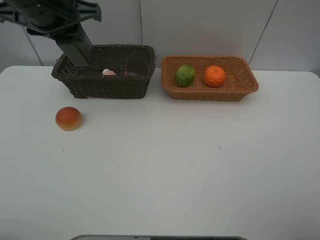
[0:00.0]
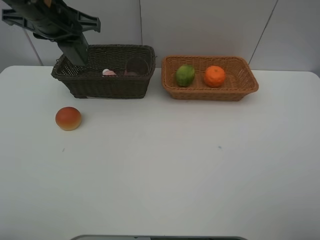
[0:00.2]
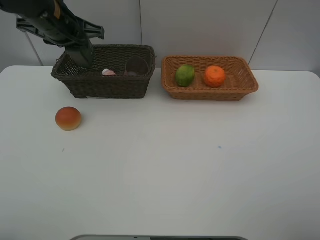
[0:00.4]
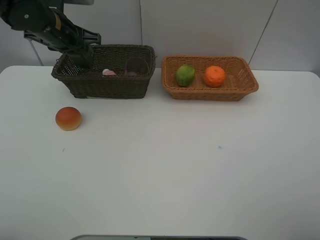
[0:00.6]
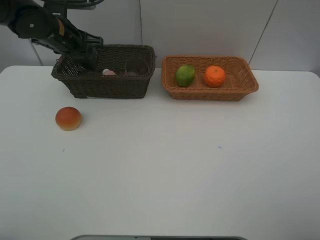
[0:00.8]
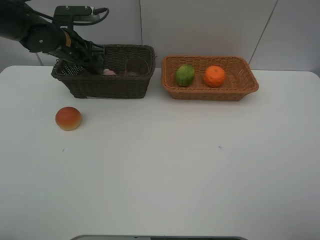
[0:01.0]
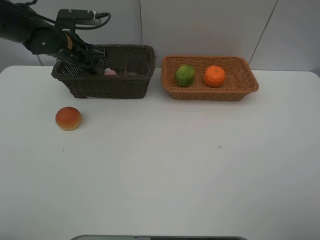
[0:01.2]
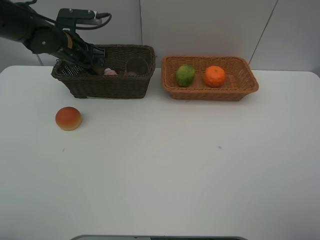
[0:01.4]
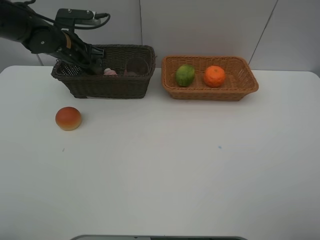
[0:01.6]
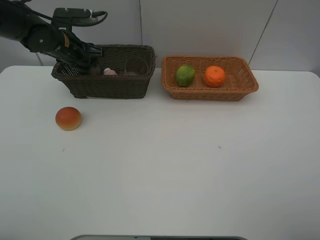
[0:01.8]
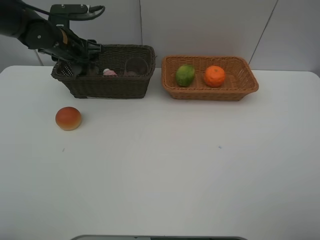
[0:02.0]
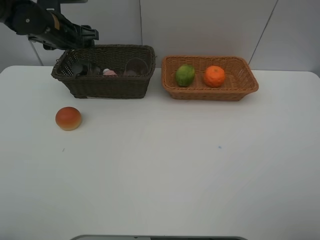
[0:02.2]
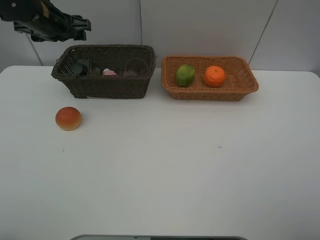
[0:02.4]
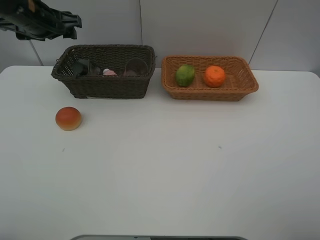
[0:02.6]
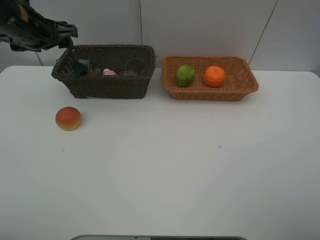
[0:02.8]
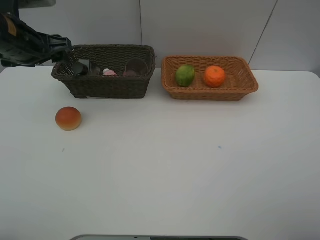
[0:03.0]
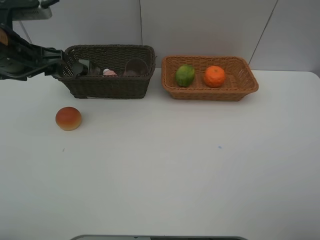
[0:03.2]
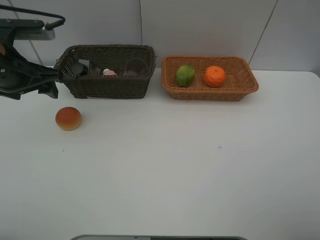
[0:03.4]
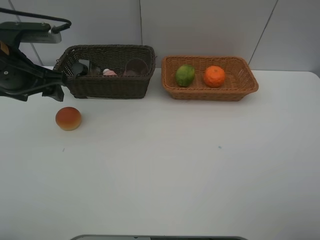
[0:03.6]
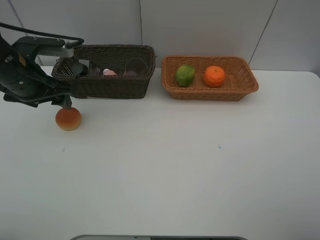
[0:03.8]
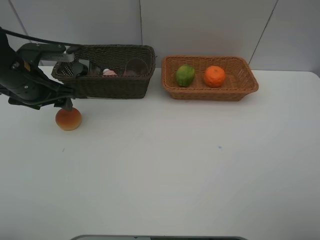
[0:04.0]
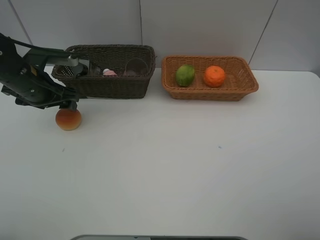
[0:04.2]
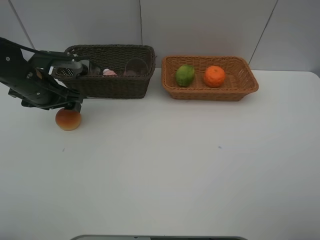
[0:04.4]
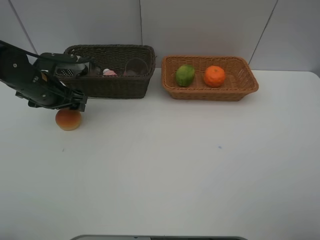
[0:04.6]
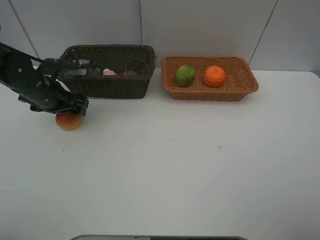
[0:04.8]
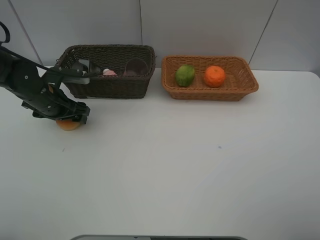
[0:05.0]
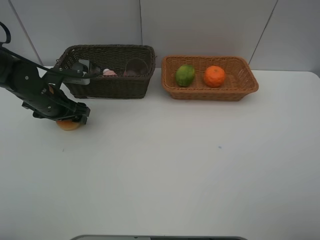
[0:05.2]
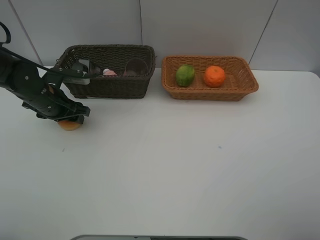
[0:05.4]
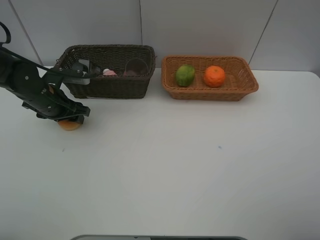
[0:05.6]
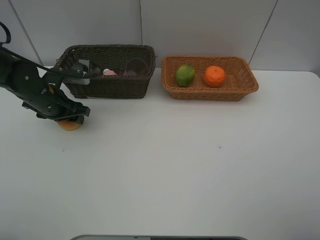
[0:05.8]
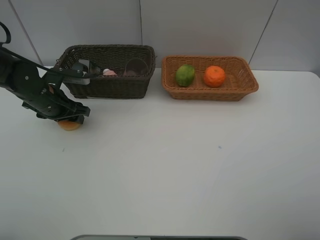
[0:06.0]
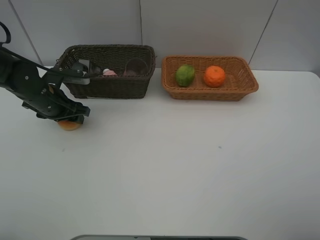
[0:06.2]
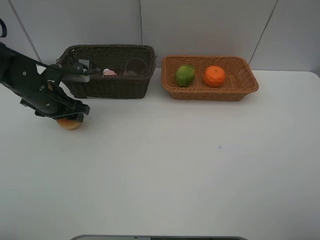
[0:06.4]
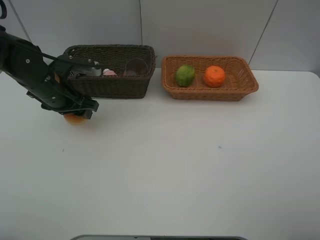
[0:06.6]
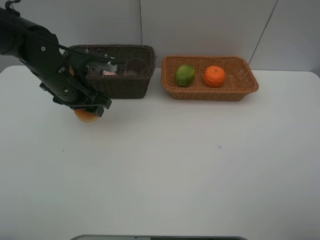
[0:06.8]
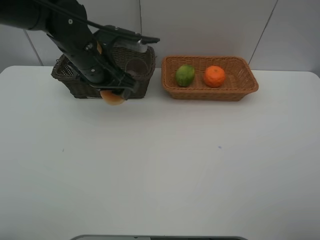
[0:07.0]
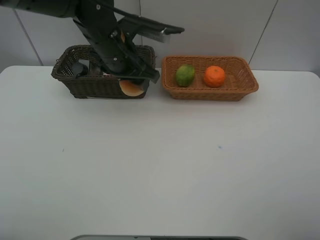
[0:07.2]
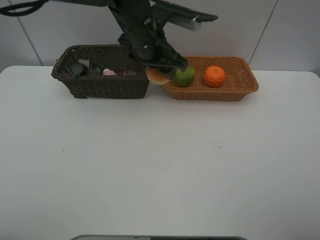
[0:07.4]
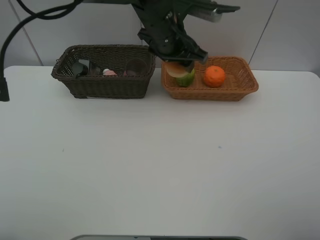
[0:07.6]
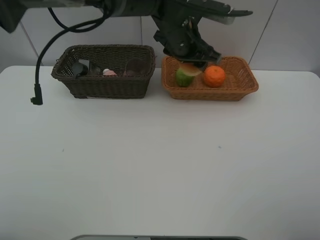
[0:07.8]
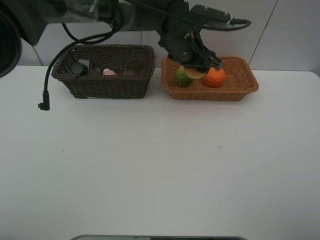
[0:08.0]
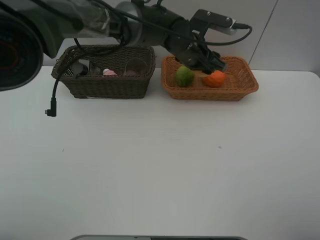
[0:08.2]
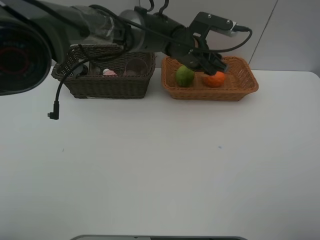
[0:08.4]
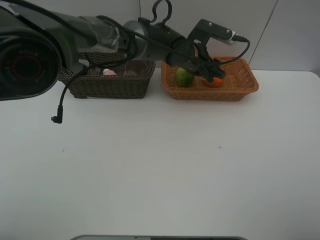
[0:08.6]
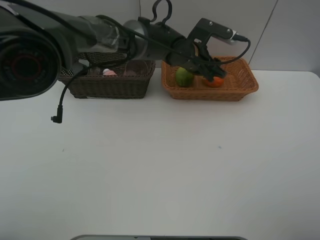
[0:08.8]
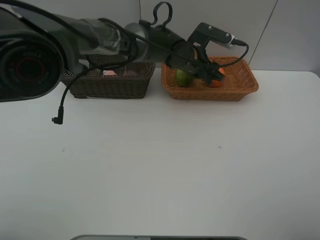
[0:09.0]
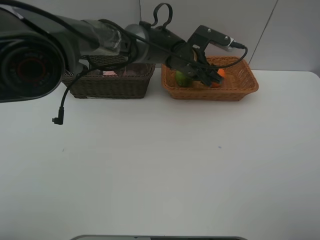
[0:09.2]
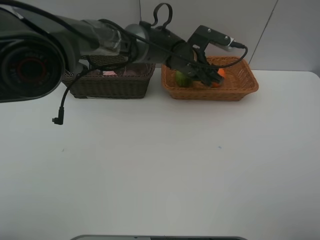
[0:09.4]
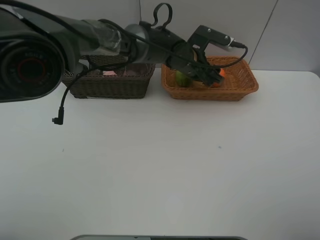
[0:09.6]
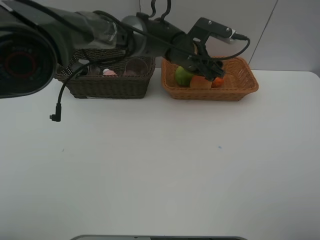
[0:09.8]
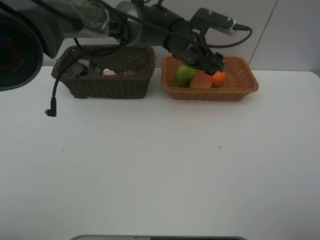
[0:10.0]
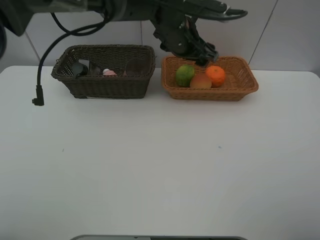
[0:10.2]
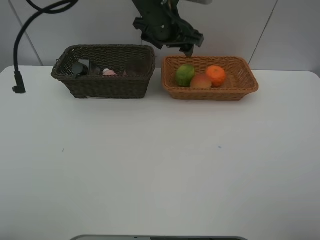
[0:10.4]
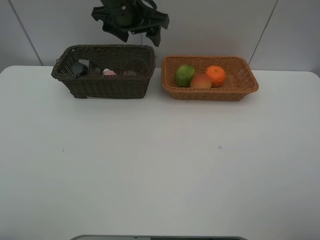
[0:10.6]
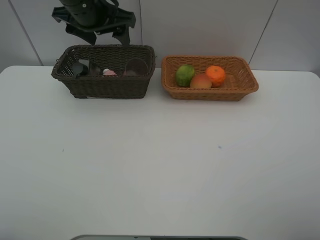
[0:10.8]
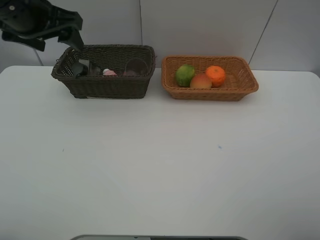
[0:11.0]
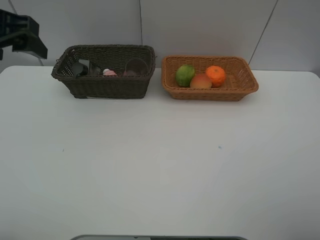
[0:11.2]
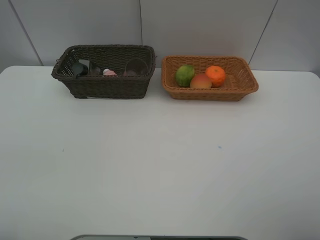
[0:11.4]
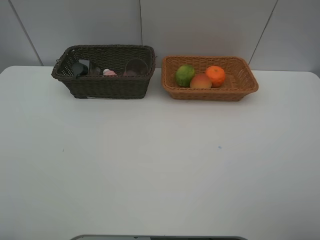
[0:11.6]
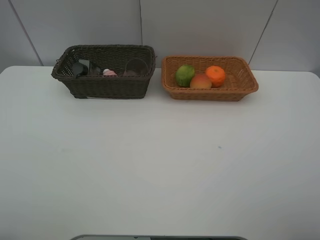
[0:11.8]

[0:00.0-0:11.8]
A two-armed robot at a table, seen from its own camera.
Task of the whole recording: place multiple objects separately in different baskets.
0:00.0 to 0:01.4: The left gripper heads downward and forward, covering roughly 20 cm.
0:01.4 to 0:03.0: The left gripper goes about 15 cm backward and upward, and opens its fingers.
0:03.0 to 0:04.4: The left gripper moves downward, roughly 10 cm.
0:04.4 to 0:06.0: The grippers stay close to where they were, moving slightly.
0:06.0 to 0:07.4: The left gripper goes about 30 cm to the right and upward.
0:07.4 to 0:08.8: The left gripper is displaced to the right and downward by some 10 cm.
0:08.8 to 0:10.4: The left gripper goes approximately 15 cm upward and to the left.
0:10.4 to 0:11.8: The left gripper travels backward and to the left by approximately 50 cm.

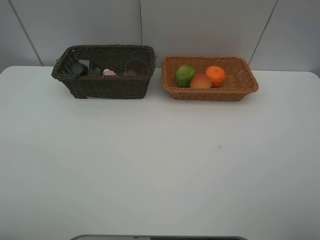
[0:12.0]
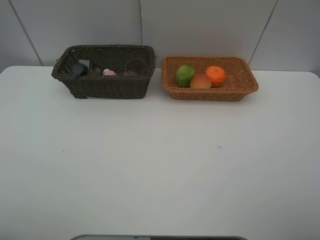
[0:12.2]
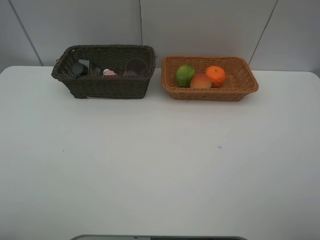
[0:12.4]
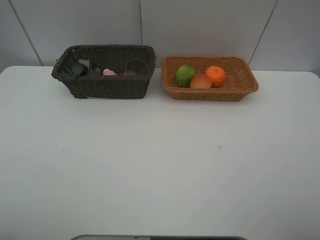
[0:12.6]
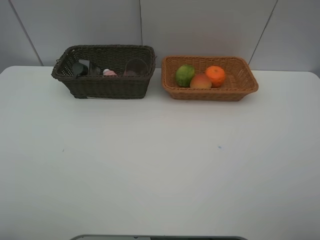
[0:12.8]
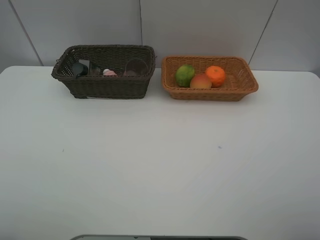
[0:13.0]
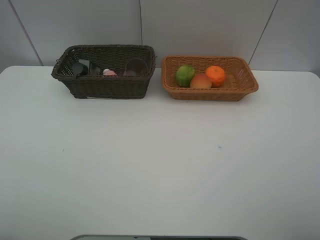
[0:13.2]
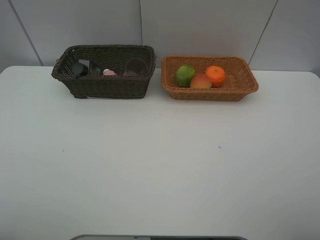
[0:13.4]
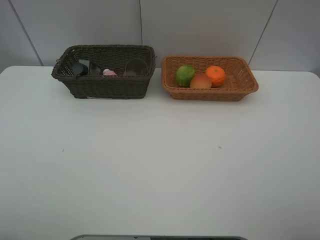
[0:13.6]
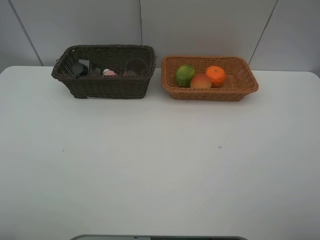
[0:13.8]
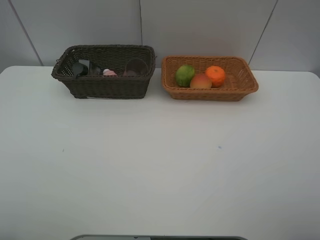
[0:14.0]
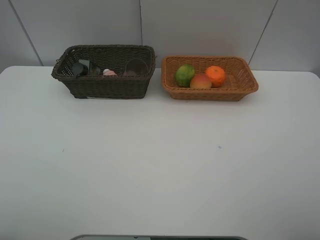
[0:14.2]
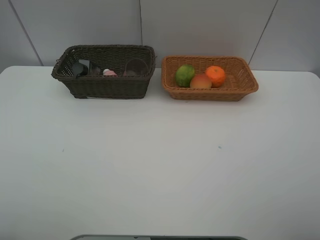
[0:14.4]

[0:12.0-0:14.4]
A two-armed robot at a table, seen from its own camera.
Task of the whole recording: place multiple objects separately in different baskets.
0:13.2 to 0:14.4: The two grippers keep their place.

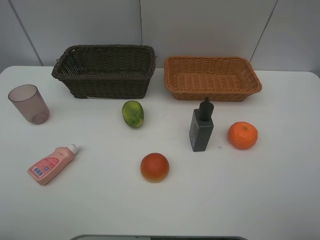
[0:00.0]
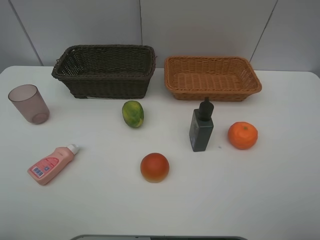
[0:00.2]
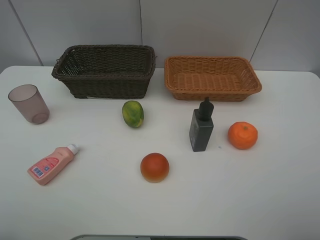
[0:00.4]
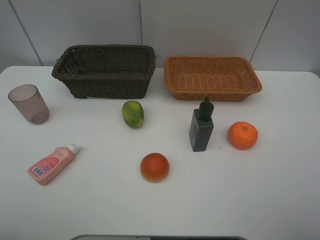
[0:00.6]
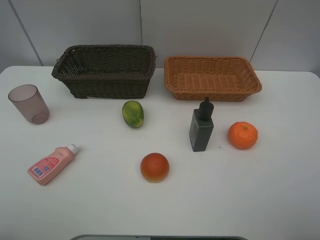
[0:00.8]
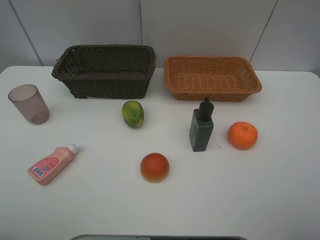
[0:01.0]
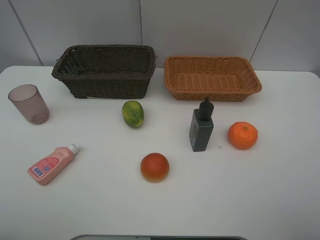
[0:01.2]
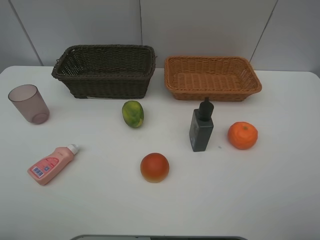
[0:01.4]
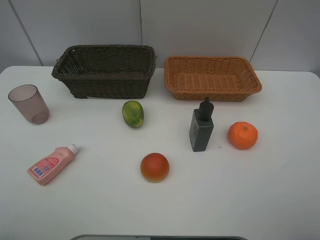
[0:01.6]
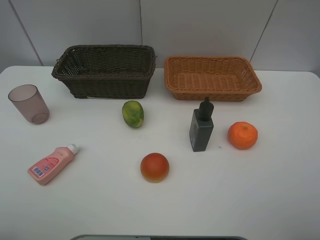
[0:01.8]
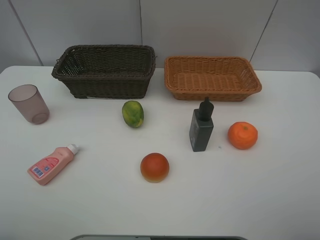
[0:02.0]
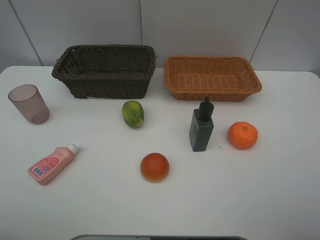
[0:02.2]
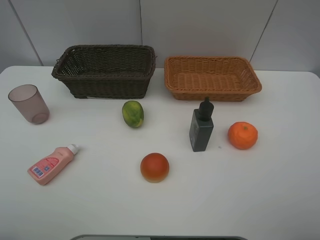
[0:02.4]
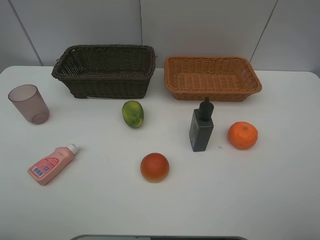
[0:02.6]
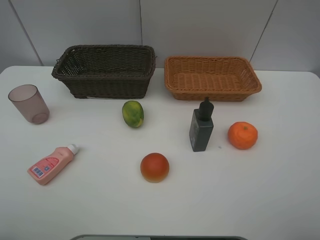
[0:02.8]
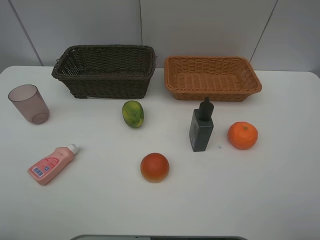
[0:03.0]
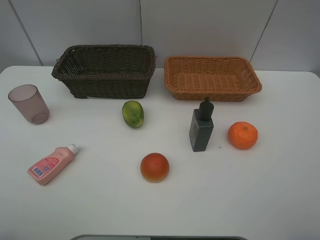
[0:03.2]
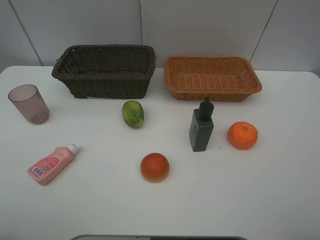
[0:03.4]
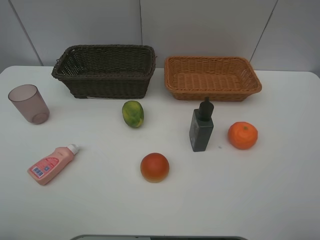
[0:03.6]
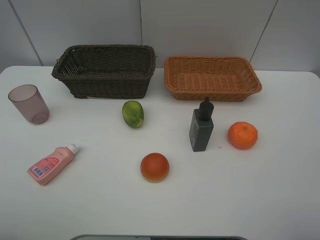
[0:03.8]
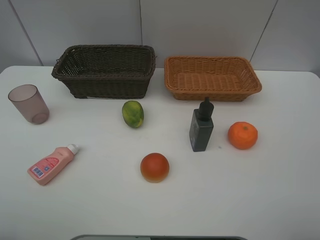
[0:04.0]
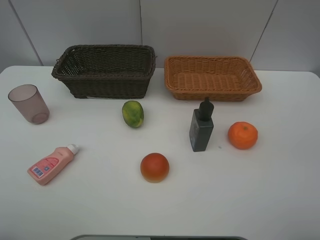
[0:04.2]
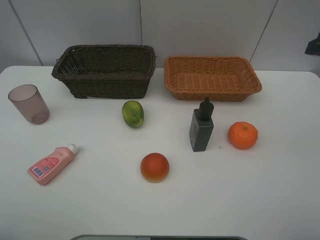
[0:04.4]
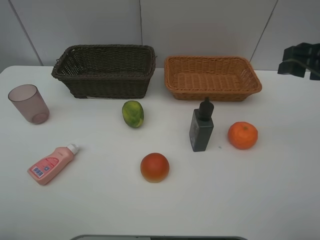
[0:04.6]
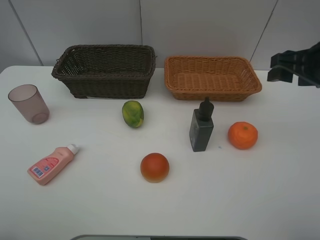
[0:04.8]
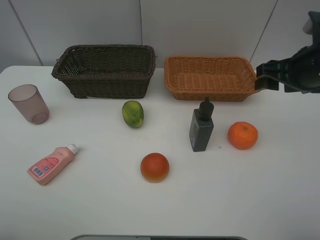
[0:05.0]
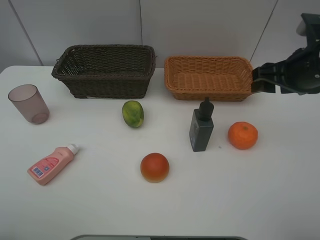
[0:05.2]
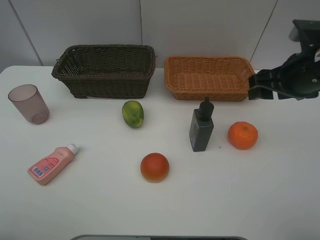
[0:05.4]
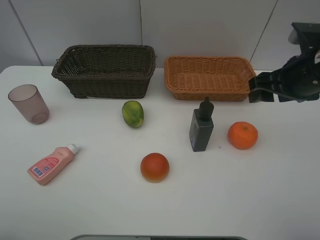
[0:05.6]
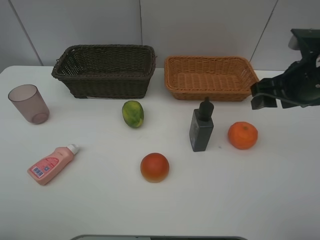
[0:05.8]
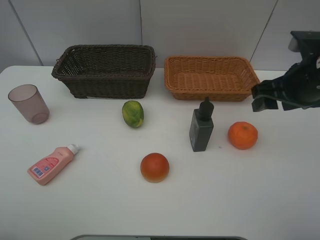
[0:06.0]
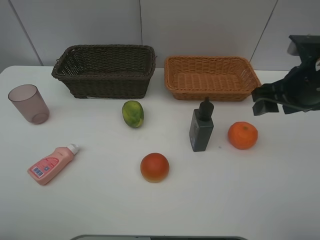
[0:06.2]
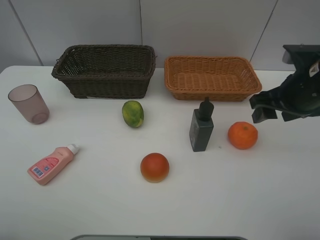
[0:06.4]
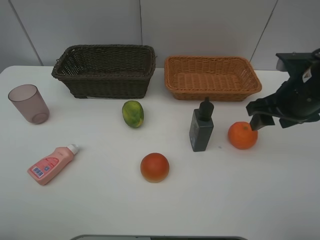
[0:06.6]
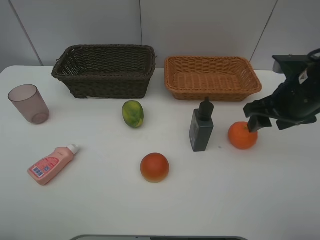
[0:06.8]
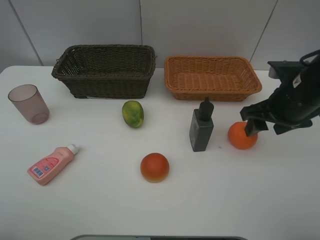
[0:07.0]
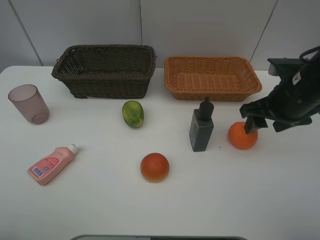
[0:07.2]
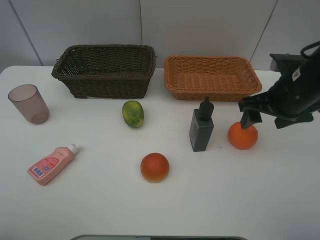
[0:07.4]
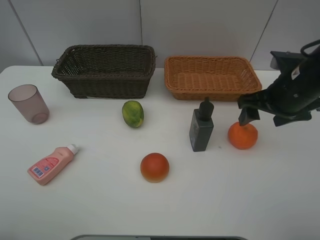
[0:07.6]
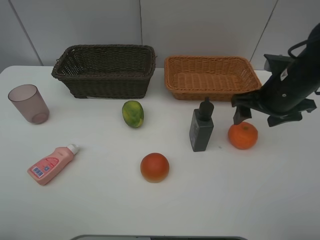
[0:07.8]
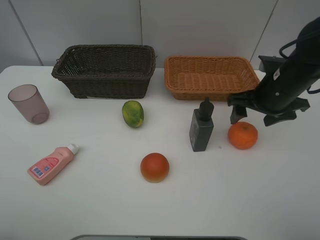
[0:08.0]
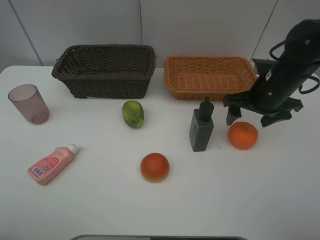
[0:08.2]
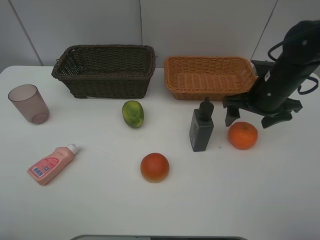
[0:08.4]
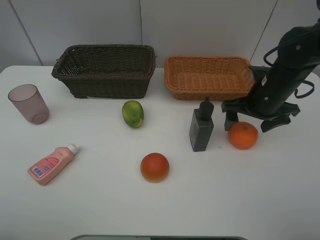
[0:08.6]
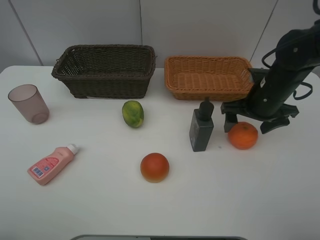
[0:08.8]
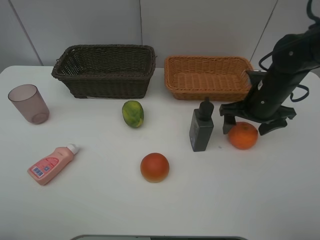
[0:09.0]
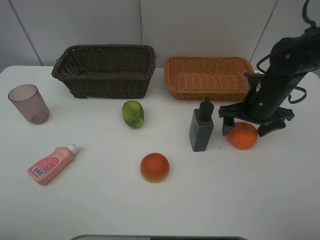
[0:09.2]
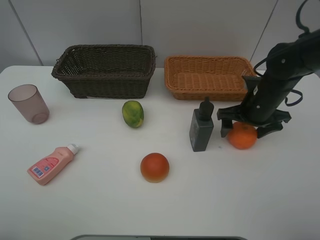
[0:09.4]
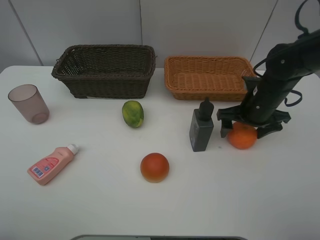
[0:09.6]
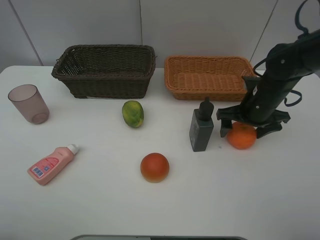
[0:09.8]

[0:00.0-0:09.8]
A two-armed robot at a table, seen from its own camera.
Task of the whole recording: place multiple objects separately in different baskets.
0:00.0 to 0:01.4: Both grippers stay put.
0:04.2 to 0:05.6: The right gripper shifts about 10 cm downward, forward and to the left.
0:05.6 to 0:07.0: There are only small adjustments of the grippers.
0:07.0 to 0:08.4: The right gripper is displaced forward by some 5 cm, and opens its fingers.
0:08.4 to 0:09.8: The grippers stay close to where they were, moving slightly.
